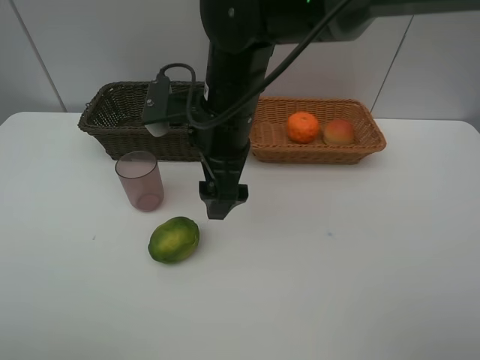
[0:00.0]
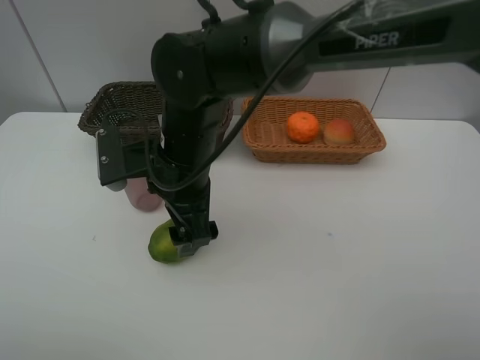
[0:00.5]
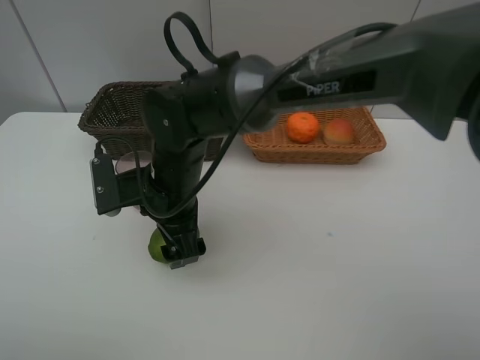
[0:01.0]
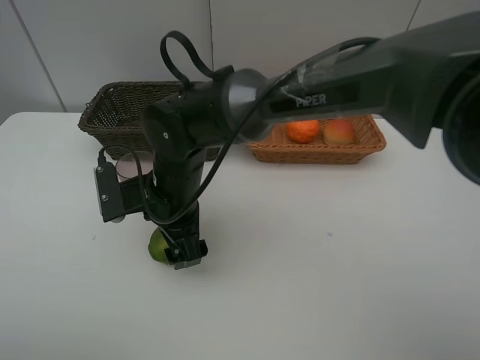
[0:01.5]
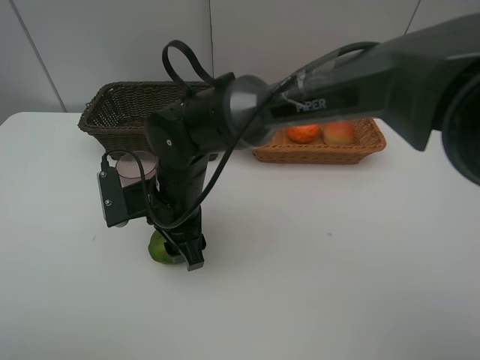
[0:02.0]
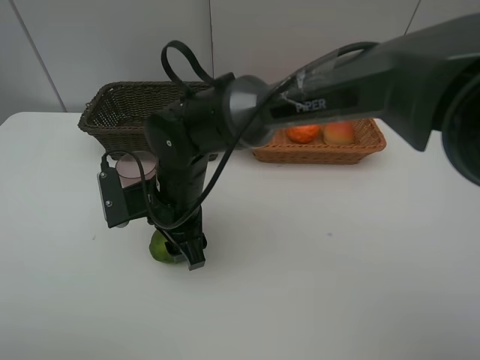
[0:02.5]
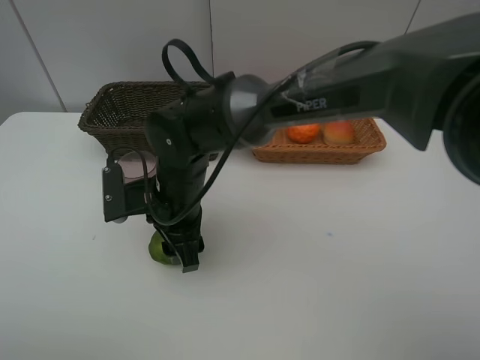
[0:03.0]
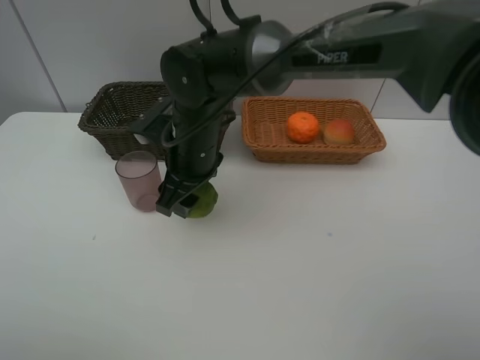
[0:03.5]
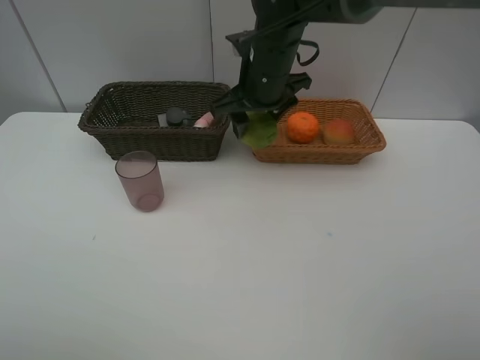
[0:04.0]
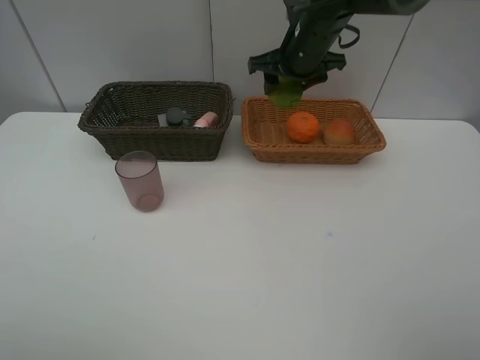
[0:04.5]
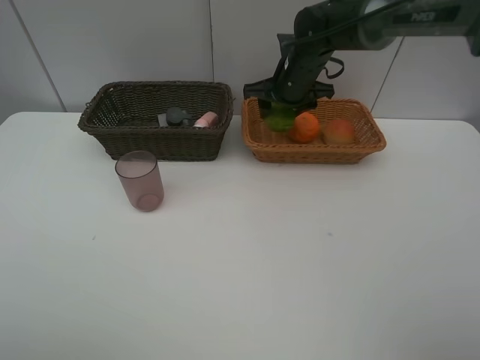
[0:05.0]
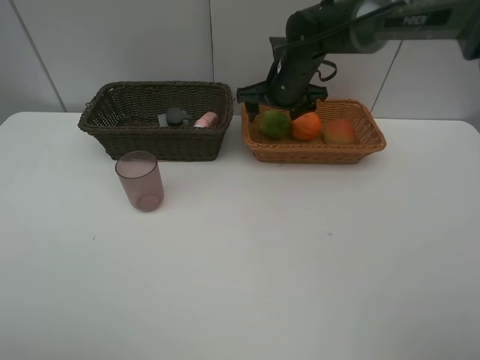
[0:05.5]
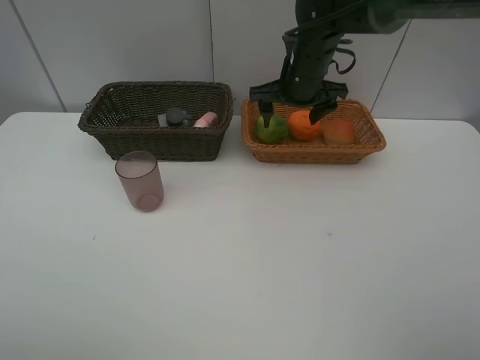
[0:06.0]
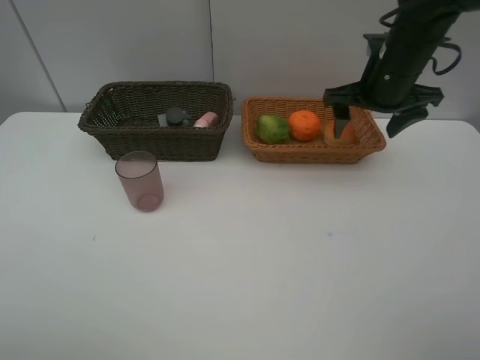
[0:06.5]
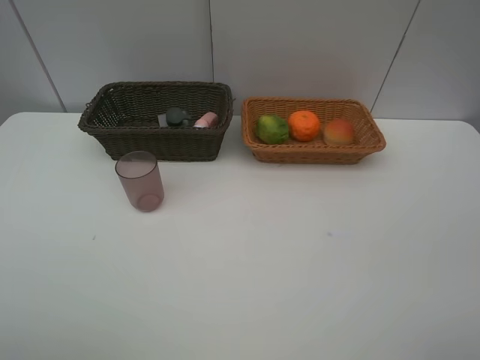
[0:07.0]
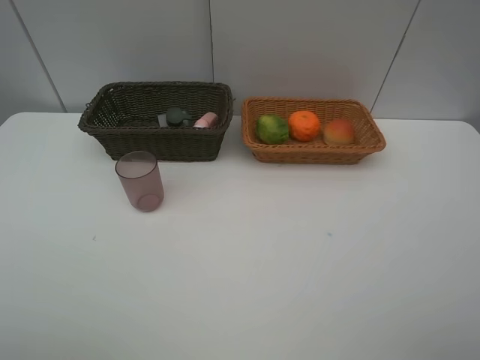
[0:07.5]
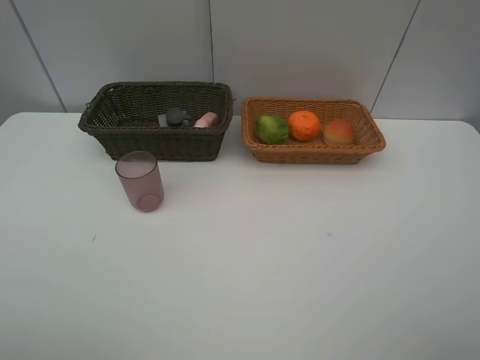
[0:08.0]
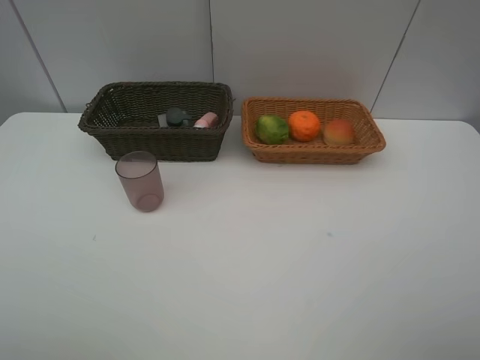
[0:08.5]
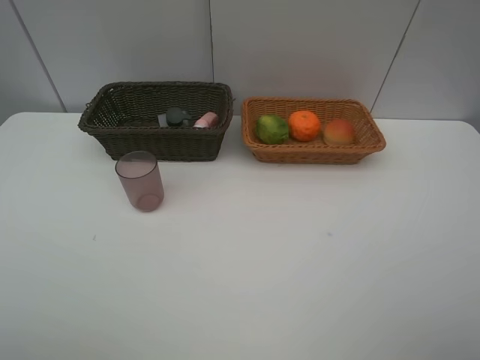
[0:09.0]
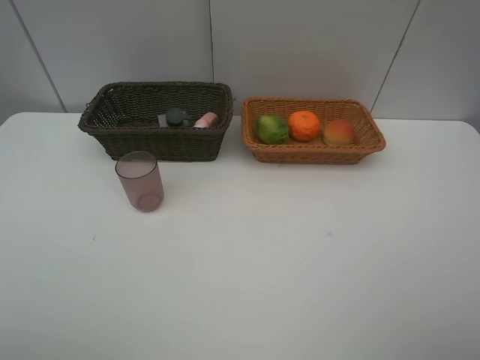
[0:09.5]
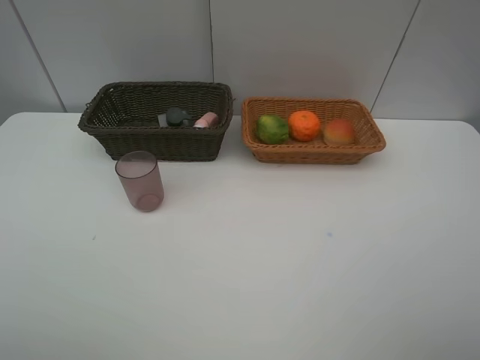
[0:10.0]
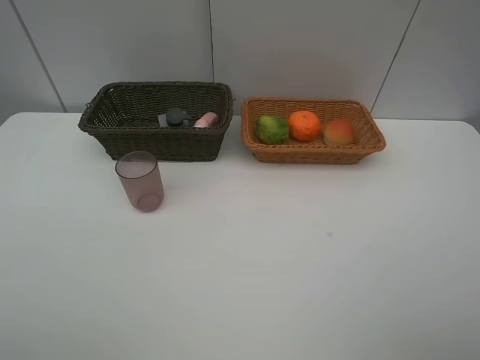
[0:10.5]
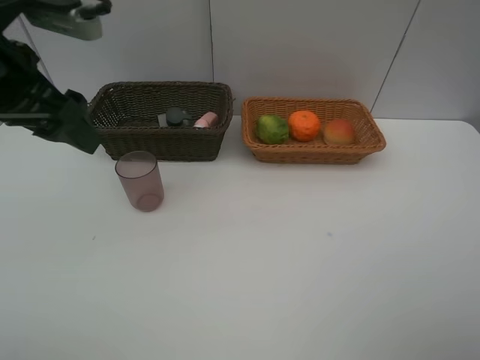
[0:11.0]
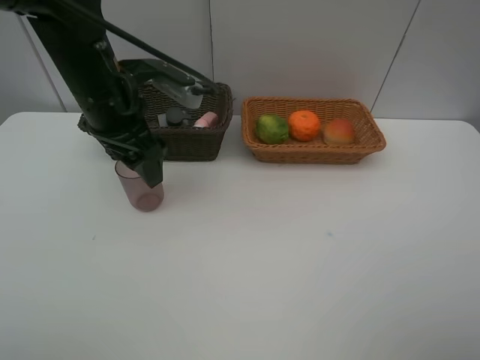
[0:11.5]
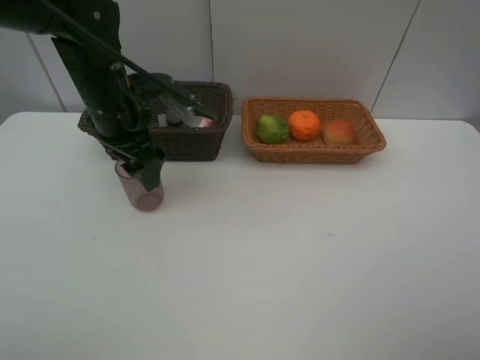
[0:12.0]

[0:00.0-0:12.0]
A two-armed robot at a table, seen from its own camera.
Task of the whole recording: place multiple objects separately in different baskets.
0:00.0 to 0:02.0: The right gripper travels downward and to the left by about 10 cm, and closes.
0:02.0 to 0:04.0: The right gripper is displaced forward, to the right and upward by approximately 20 cm.
0:04.0 to 0:06.0: The right gripper is displaced to the right by approximately 5 cm, and opens its fingers.
0:06.0 to 0:08.0: The right gripper travels backward and to the right by some 50 cm.
0:10.0 to 0:12.0: The left gripper is displaced forward and to the right by approximately 35 cm.

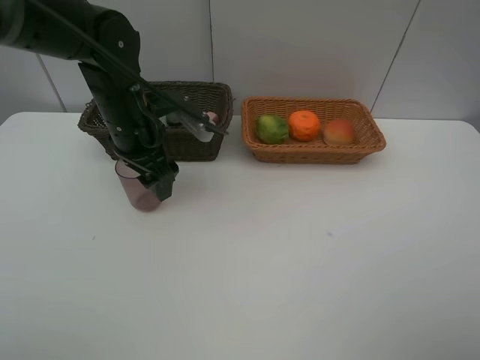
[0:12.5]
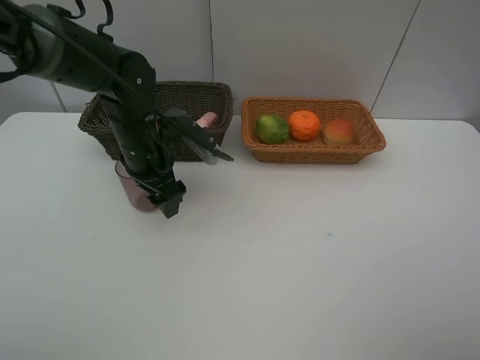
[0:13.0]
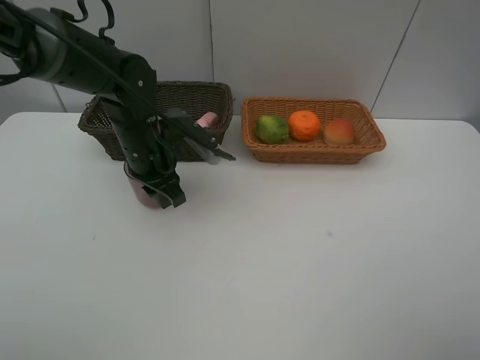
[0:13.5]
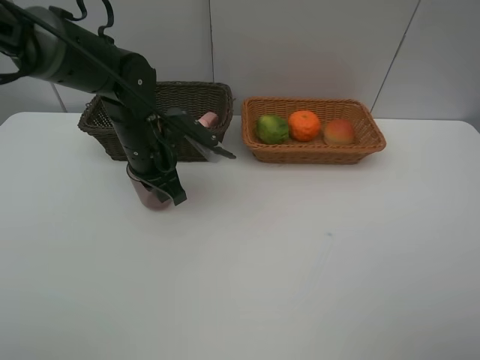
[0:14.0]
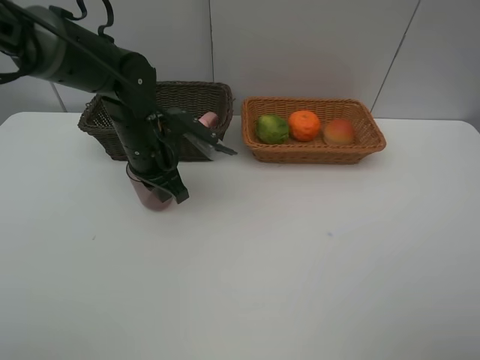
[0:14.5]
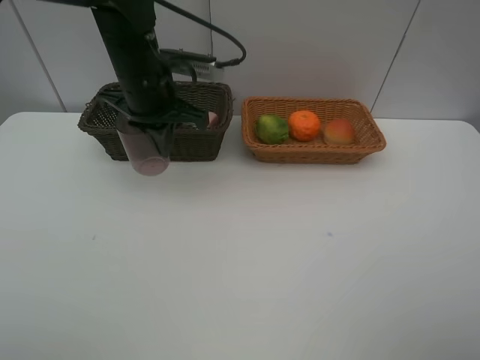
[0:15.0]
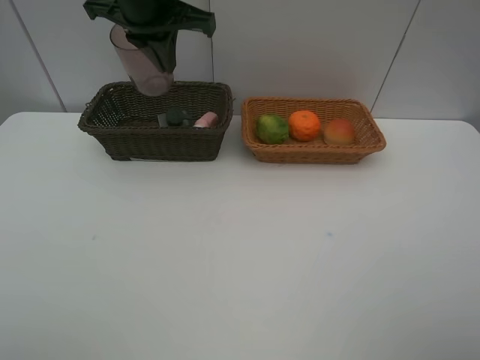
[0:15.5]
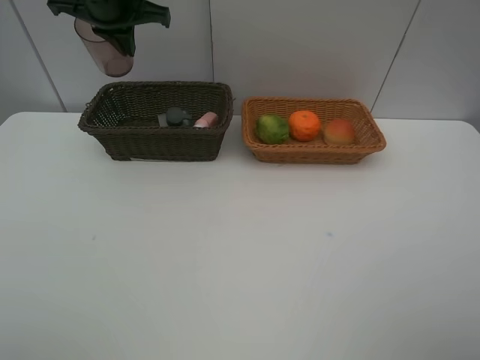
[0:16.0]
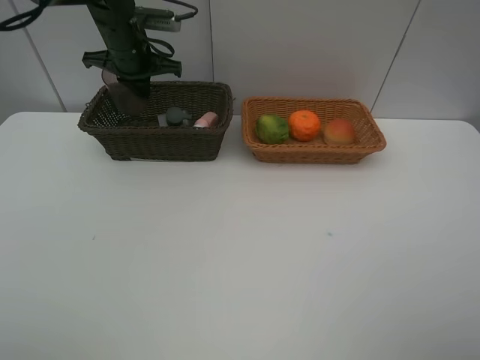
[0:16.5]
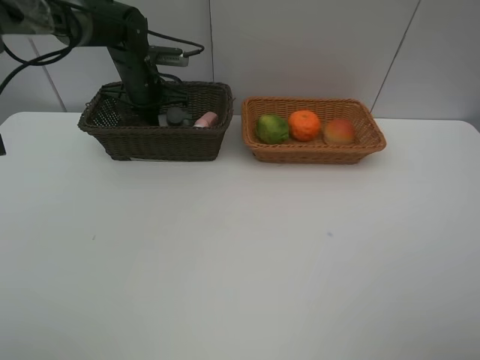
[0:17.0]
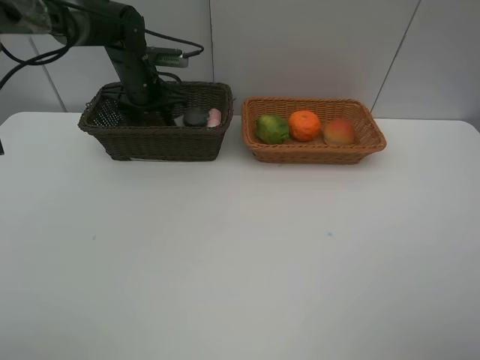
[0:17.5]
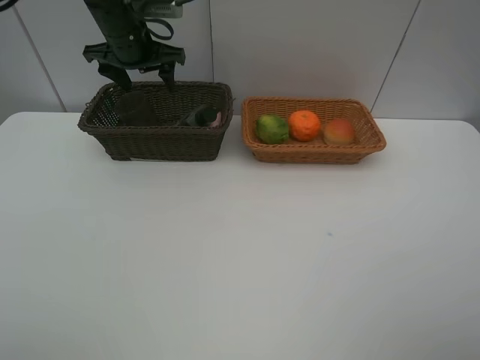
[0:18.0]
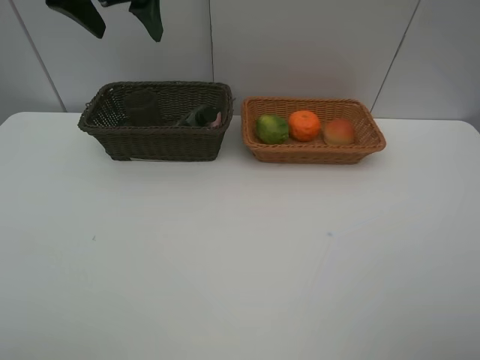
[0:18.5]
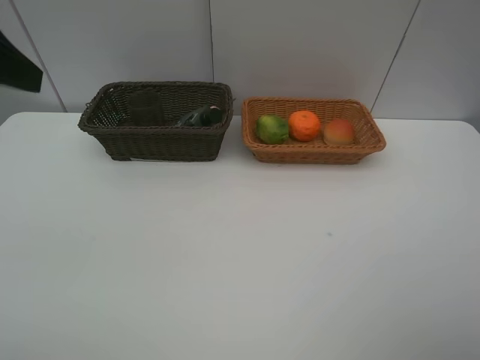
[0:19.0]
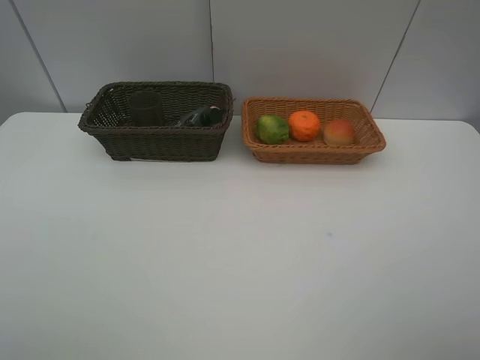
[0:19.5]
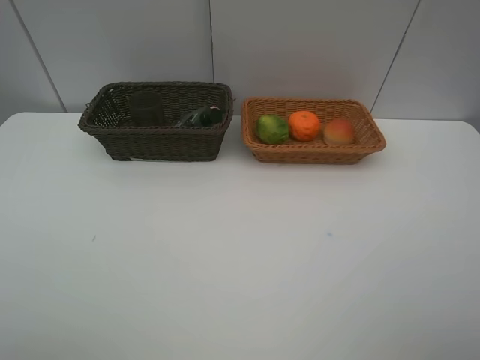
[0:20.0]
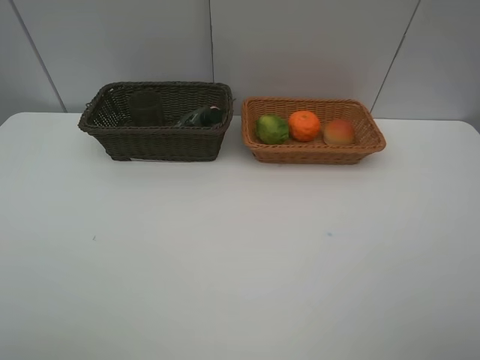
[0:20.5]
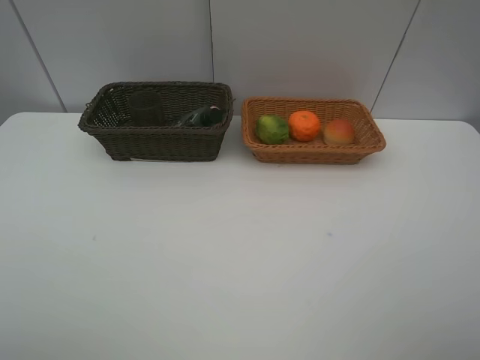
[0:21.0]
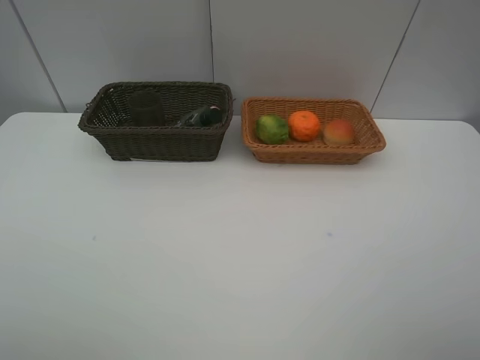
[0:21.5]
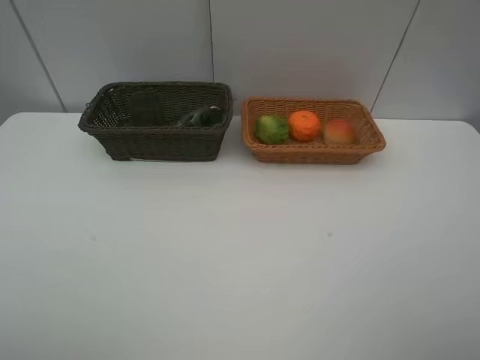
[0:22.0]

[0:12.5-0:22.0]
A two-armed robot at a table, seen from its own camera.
Task of the whole recording: place multiple objects separately in different baskets.
0:12.5 to 0:14.5: The left gripper closes its fingers.
0:14.5 to 0:16.5: The left gripper moves forward and upward, roughly 15 cm.
0:16.5 to 0:18.0: The left gripper moves about 5 cm downward and comes back, and opens.
0:18.0 to 0:20.0: The left gripper travels backward by about 50 cm.

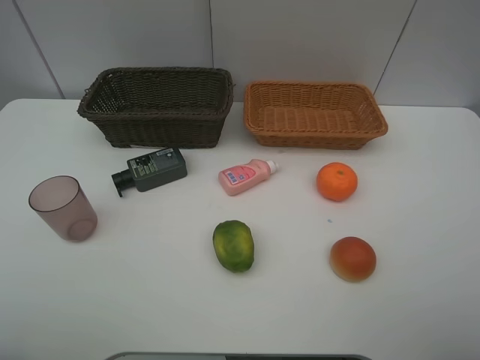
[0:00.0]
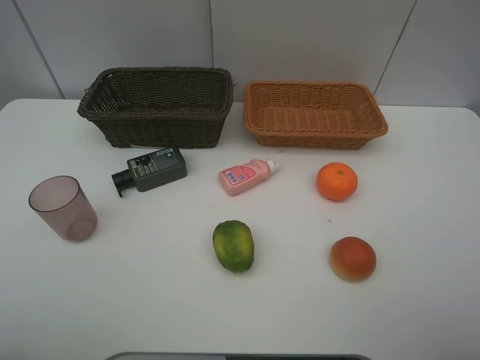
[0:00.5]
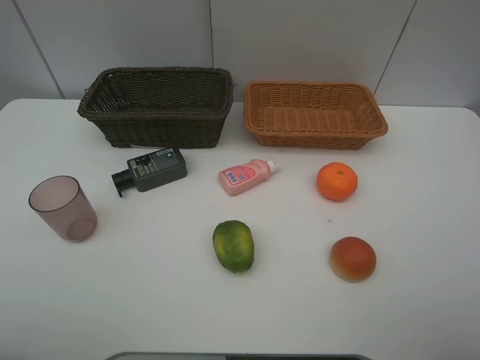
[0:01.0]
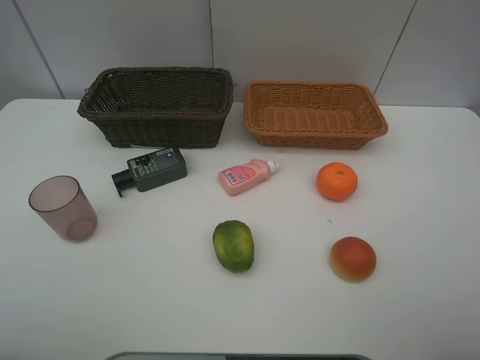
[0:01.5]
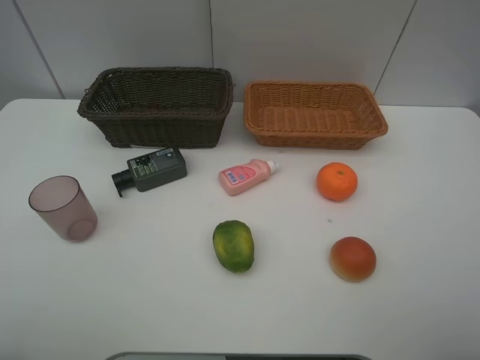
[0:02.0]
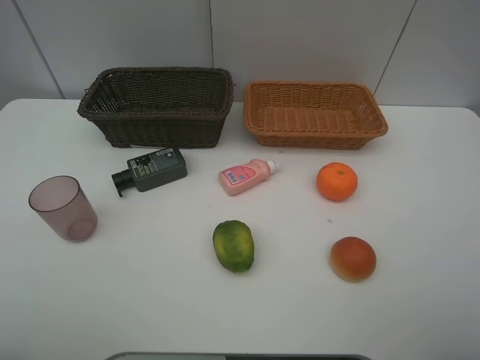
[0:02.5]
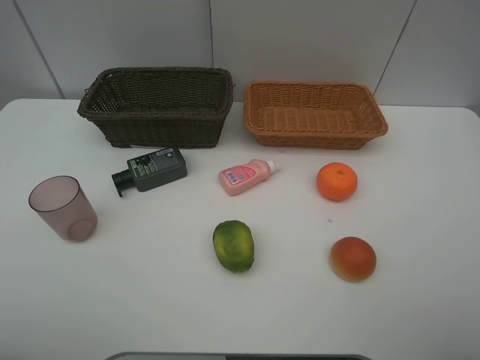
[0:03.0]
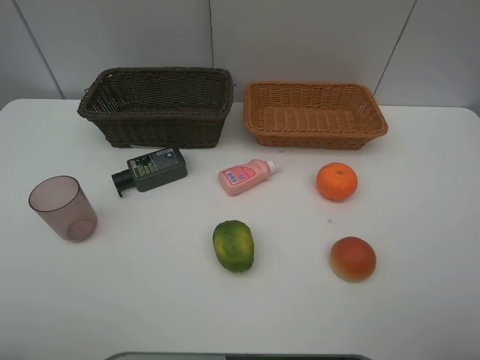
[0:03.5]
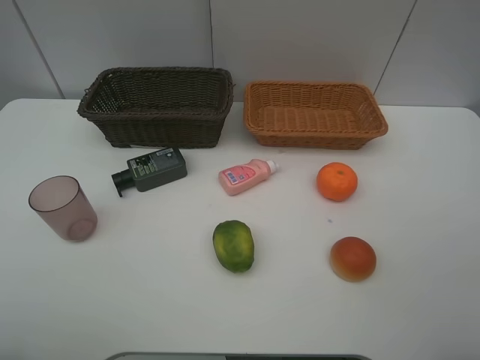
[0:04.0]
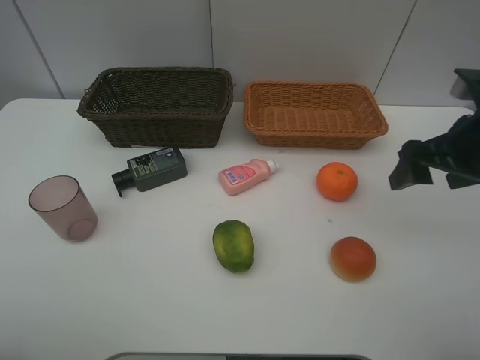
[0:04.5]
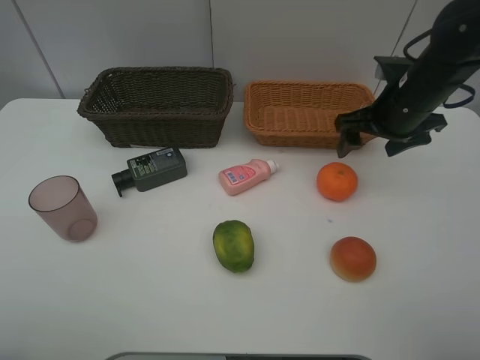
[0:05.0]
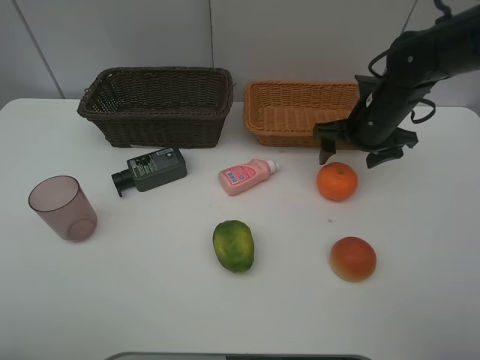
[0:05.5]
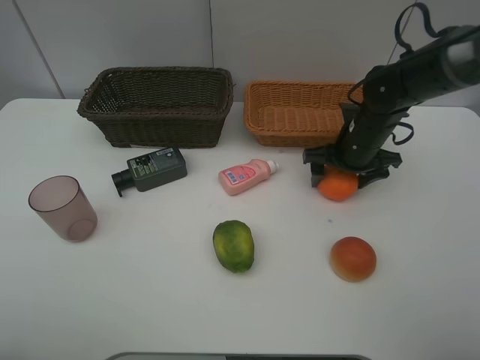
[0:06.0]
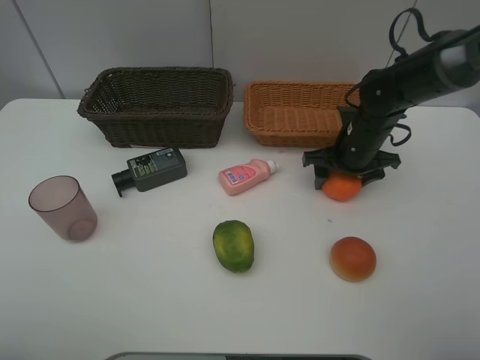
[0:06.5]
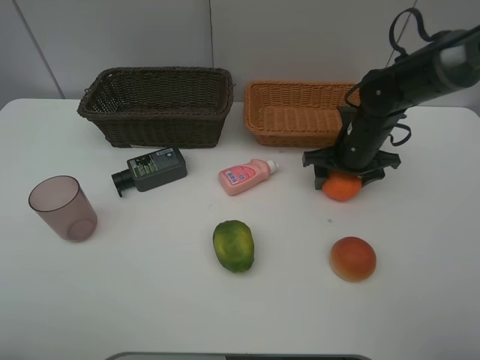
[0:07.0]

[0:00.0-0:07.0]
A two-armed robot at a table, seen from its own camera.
Task of the whole recording: place multiple objects separately in different baskets.
0:00.0 to 0:03.5: The two grippers keep their place.
0:03.5 to 0:05.0: The right gripper is displaced forward by some 35 cm.
0:05.0 to 0:07.0: The right gripper shifts approximately 10 cm downward.
